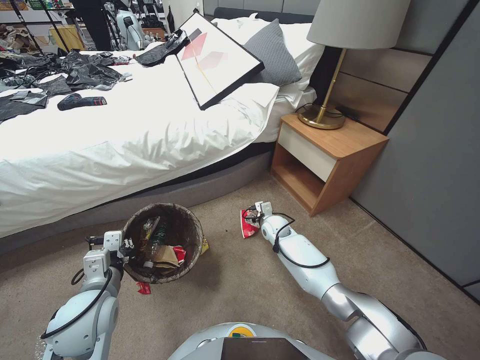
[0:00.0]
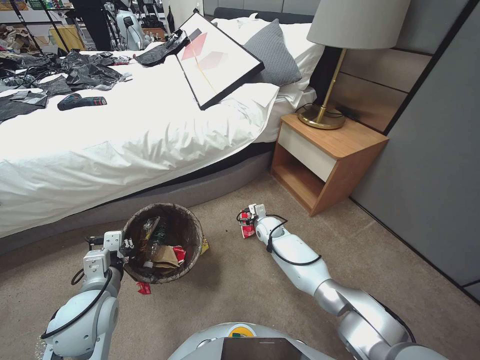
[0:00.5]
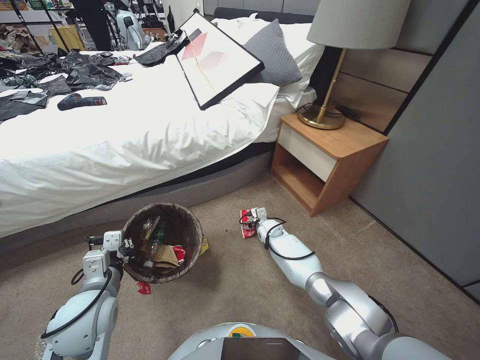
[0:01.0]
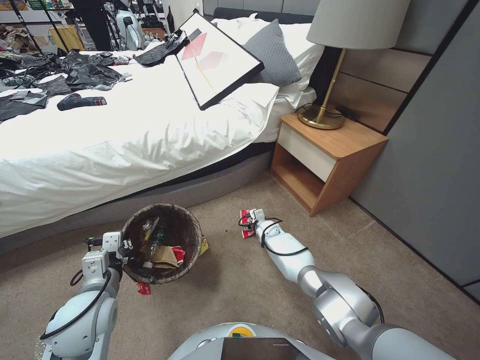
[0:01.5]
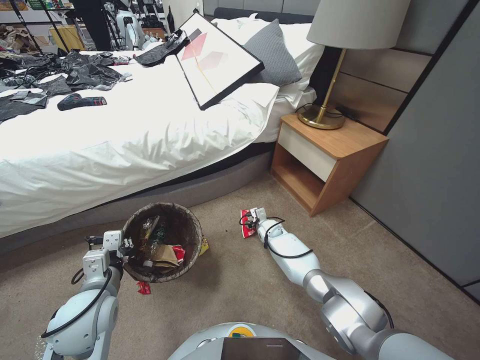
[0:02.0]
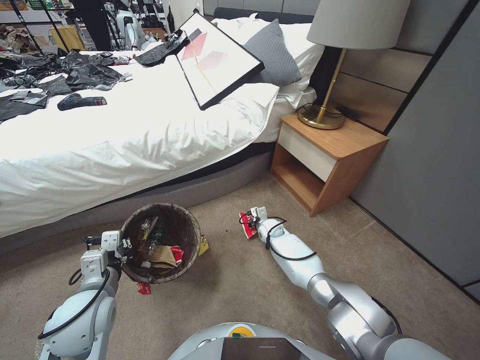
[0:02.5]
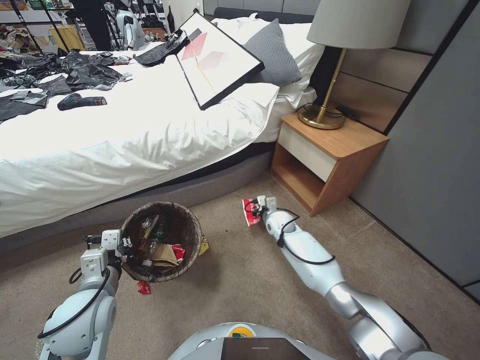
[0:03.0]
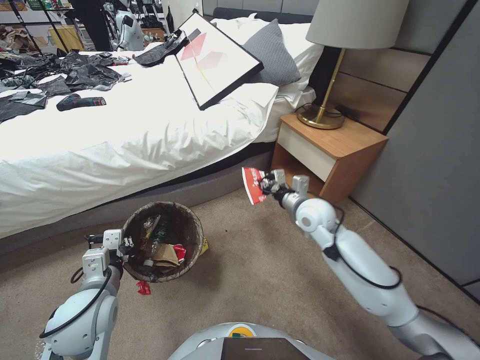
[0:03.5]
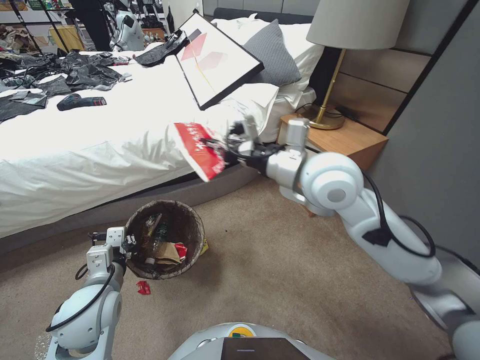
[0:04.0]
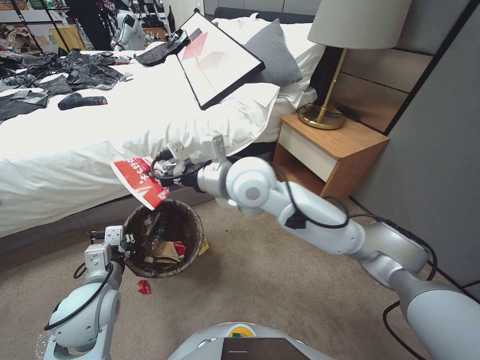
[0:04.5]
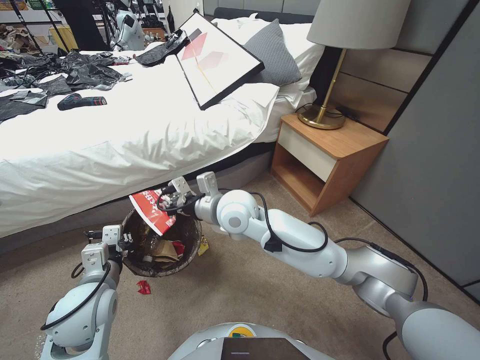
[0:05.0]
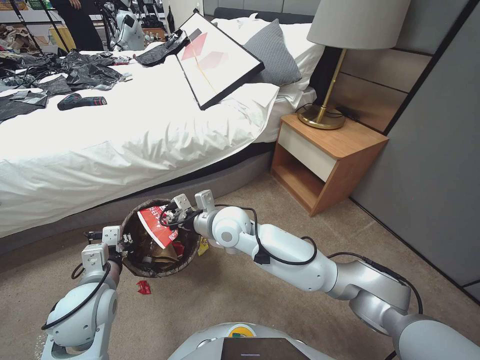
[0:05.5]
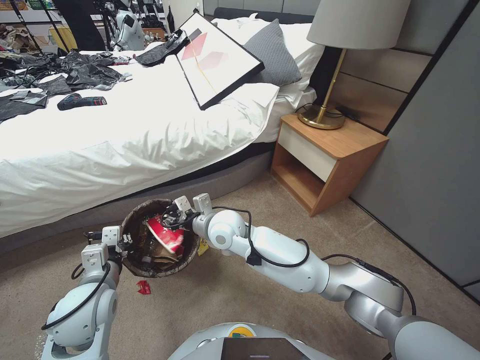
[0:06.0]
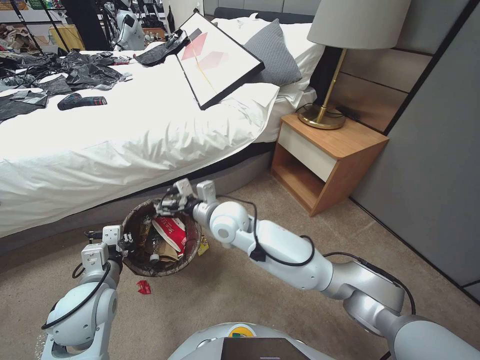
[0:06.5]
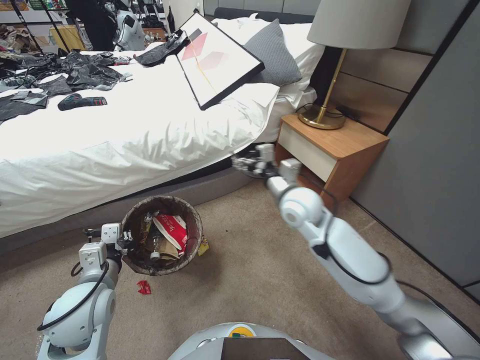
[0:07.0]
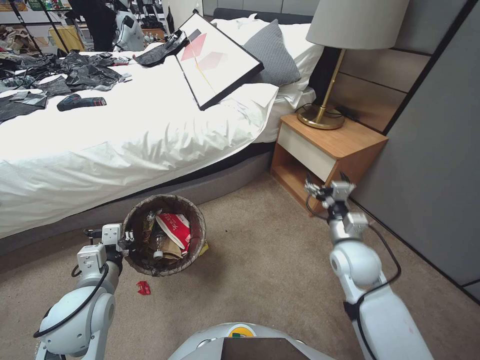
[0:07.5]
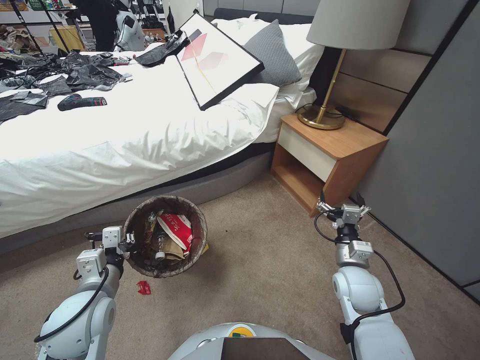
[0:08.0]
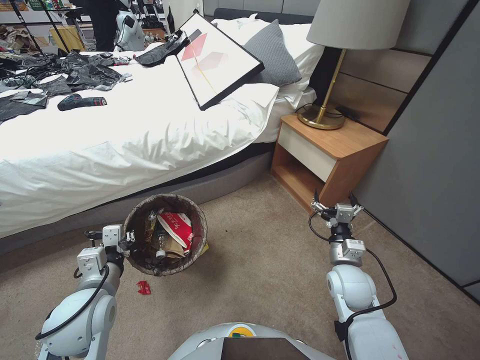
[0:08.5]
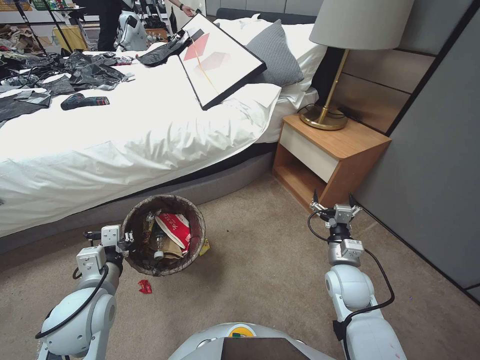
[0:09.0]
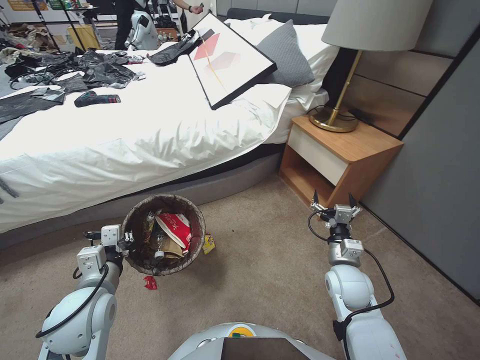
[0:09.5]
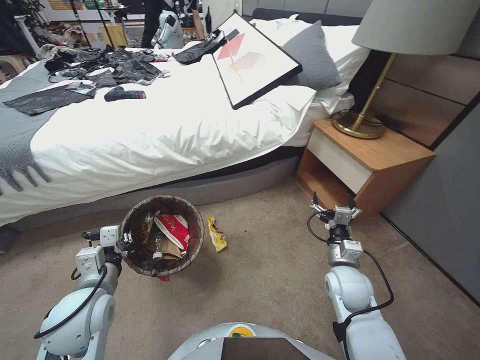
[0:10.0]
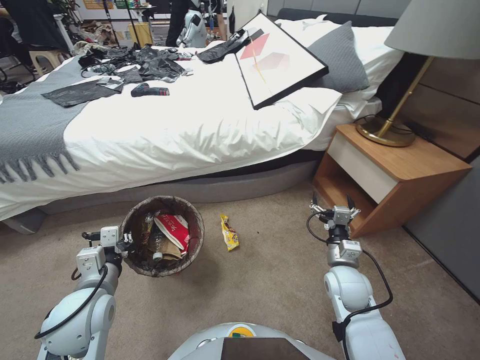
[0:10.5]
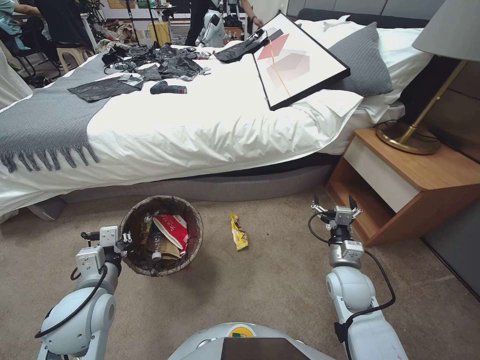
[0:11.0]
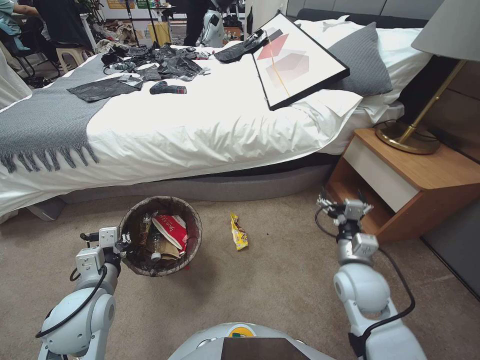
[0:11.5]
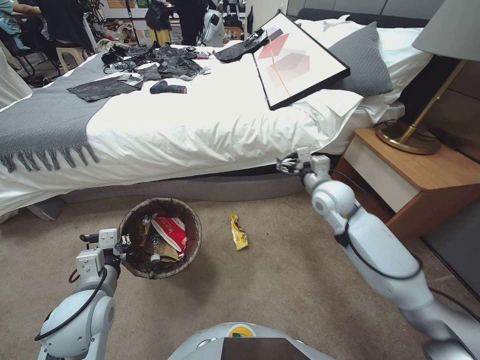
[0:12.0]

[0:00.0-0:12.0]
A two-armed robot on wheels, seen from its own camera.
Task of the whole recording: Pick up the trash bin, then pick up the garbage from the floor and place it into the trash bin.
0.0 to 2.0 s: The right gripper travels downward by roughly 5 cm, and closes.
2.0 to 4.0 s: The right gripper is displaced upward by roughly 50 cm, and closes its fingers.
4.0 to 6.0 s: The right gripper heads downward and to the left, covering some 25 cm.
6.0 to 8.0 s: The right gripper shifts approximately 30 cm to the right, and opens its fingers.
10.0 to 12.0 s: The right gripper moves forward and upward, about 20 cm.

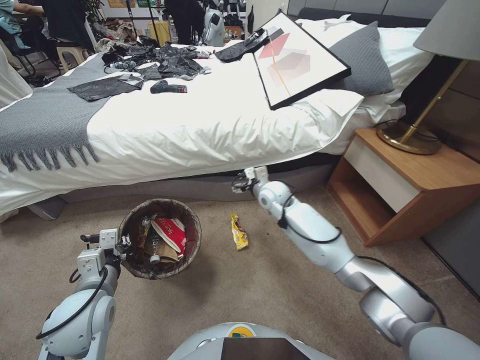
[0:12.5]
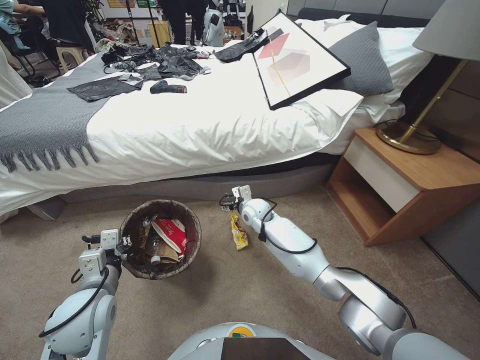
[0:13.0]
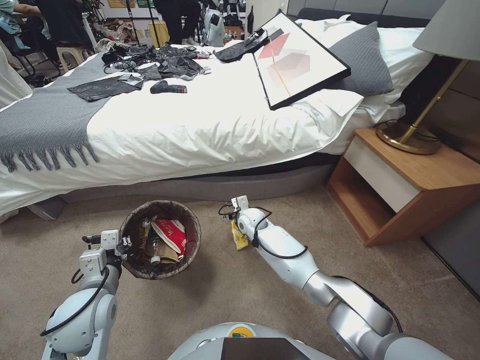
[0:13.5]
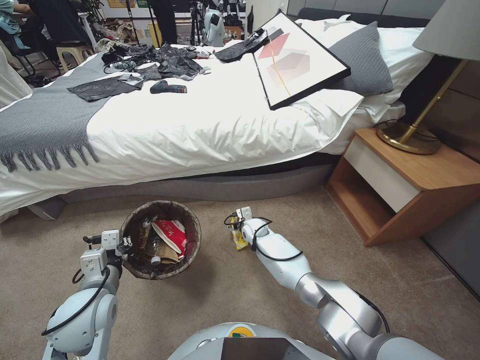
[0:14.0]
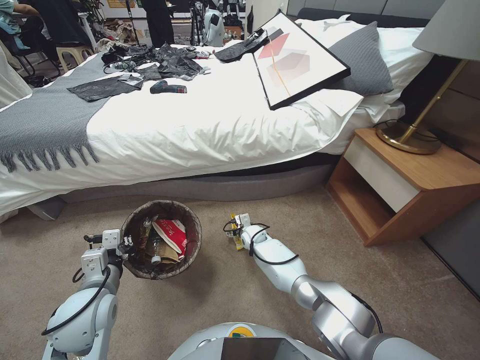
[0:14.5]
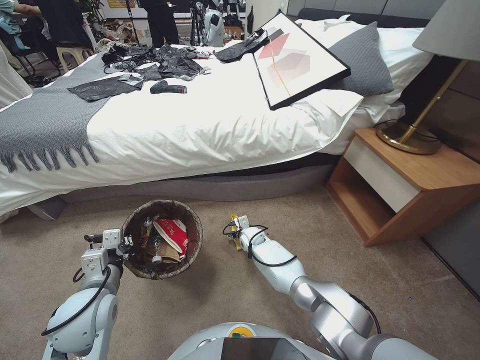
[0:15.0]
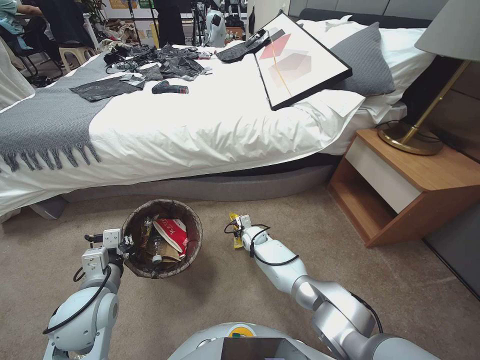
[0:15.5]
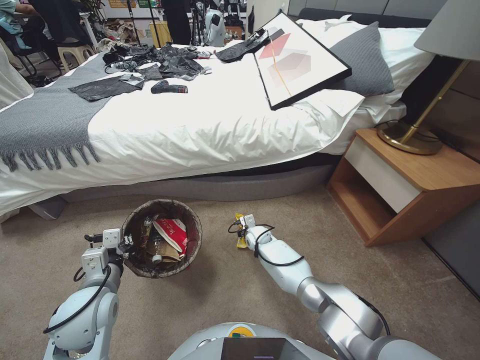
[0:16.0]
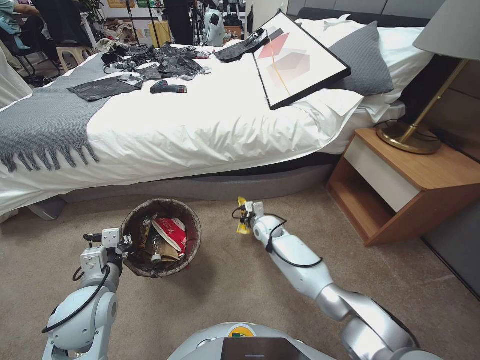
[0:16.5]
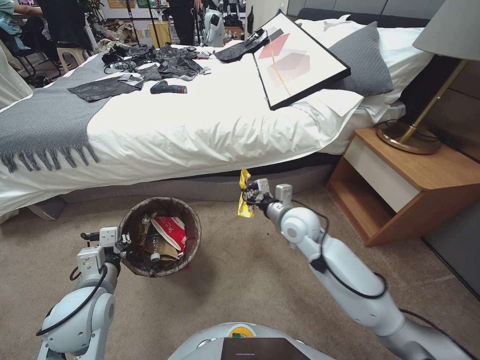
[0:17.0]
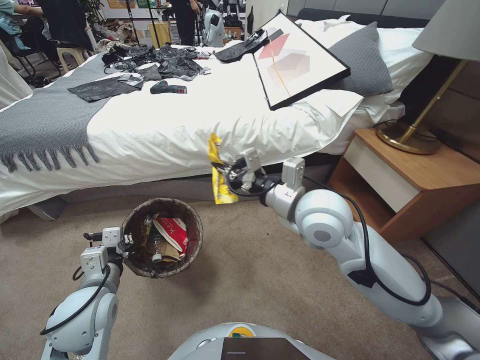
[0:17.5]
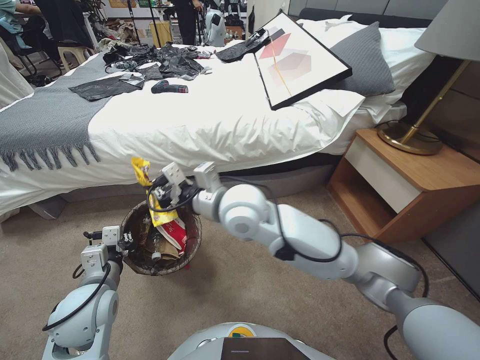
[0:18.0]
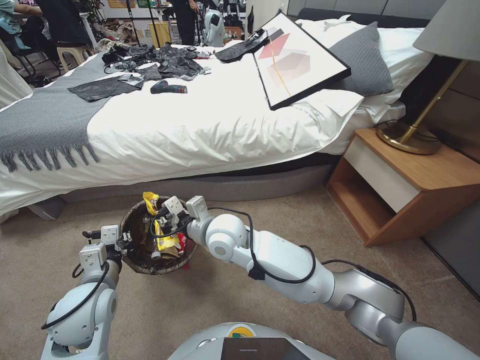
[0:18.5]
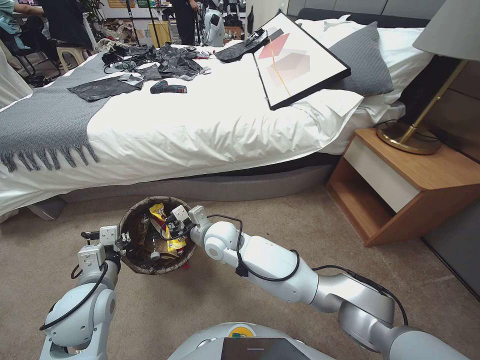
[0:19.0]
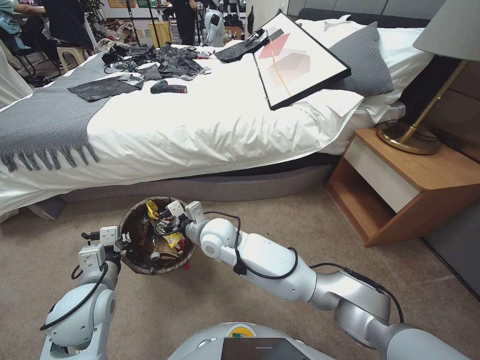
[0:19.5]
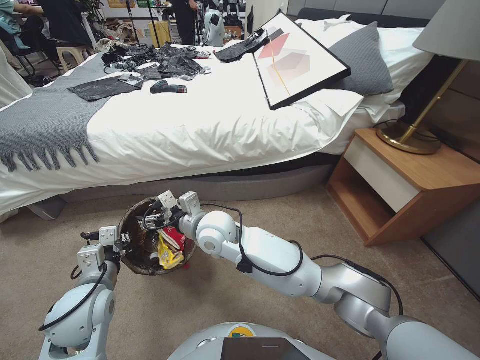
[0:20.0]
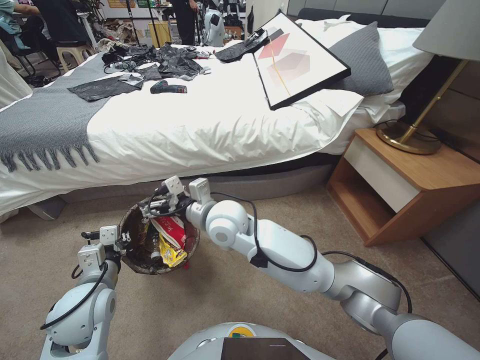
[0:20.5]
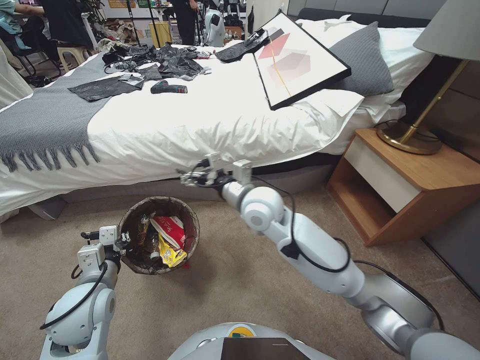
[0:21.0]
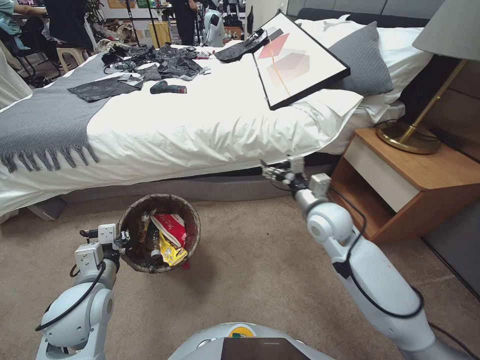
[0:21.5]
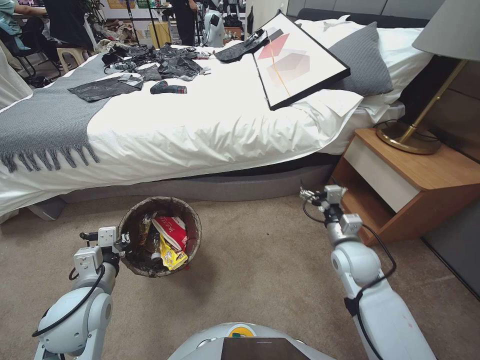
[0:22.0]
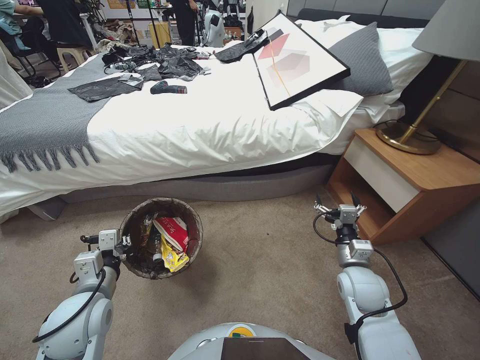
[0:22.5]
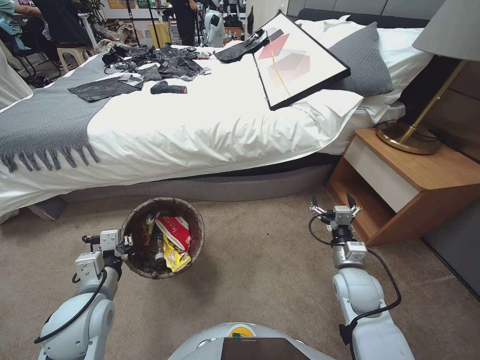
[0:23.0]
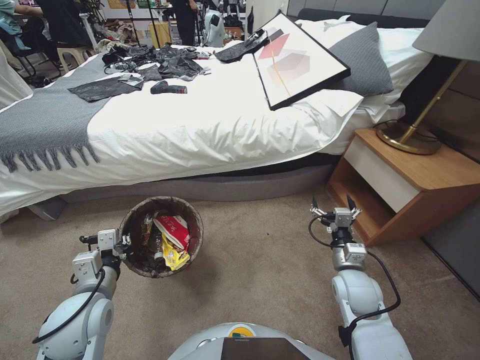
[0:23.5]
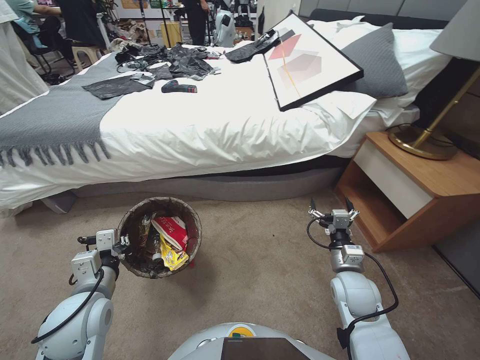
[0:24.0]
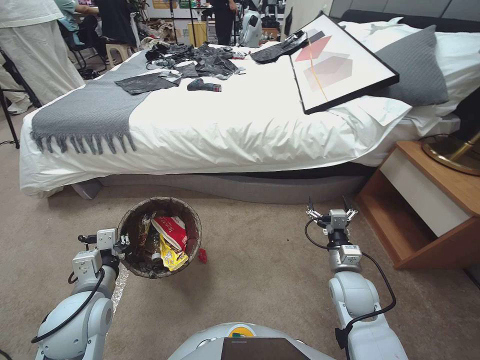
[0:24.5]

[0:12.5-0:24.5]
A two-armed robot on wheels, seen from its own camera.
Task of the whole recording: Pick up the trash bin, then pick up the garbage from the floor and place it into the trash bin.
12.5 to 14.5 s: The right gripper is displaced downward by approximately 25 cm.
14.5 to 16.5 s: The right gripper travels upward by about 5 cm, and closes up.
16.5 to 18.5 s: The right gripper is displaced upward, to the left and backward by roughly 30 cm.
18.5 to 20.5 s: The right gripper travels downward and back again, roughly 10 cm each way, and opens up.
20.5 to 22.5 s: The right gripper goes about 35 cm to the right.

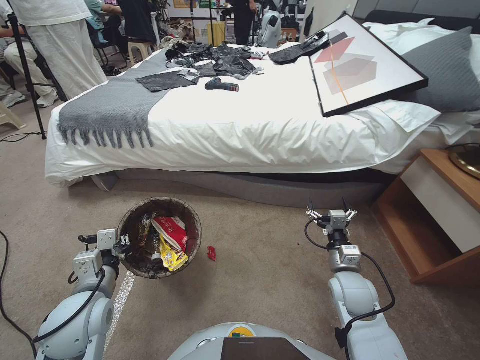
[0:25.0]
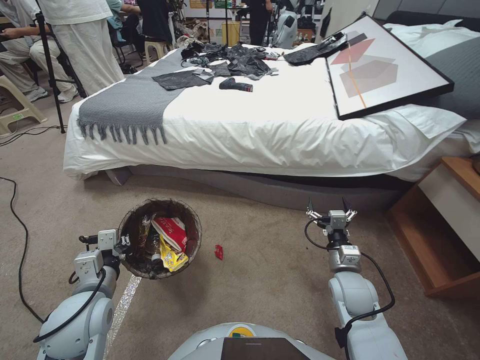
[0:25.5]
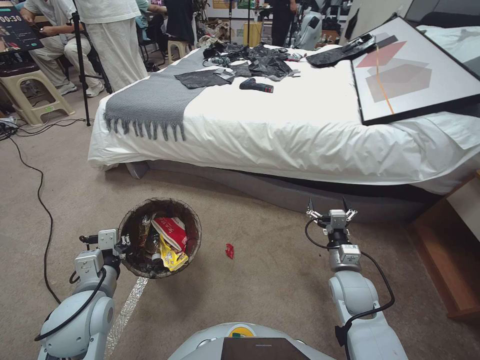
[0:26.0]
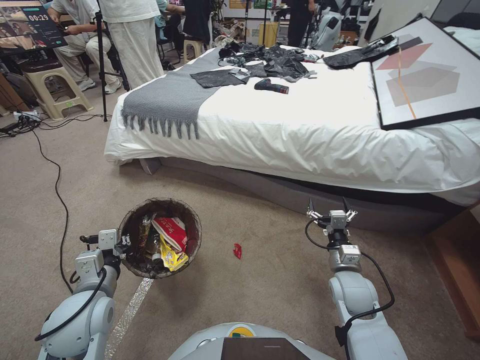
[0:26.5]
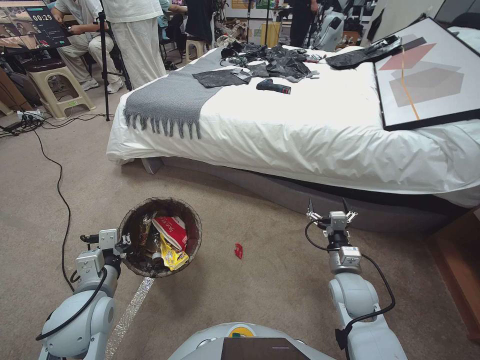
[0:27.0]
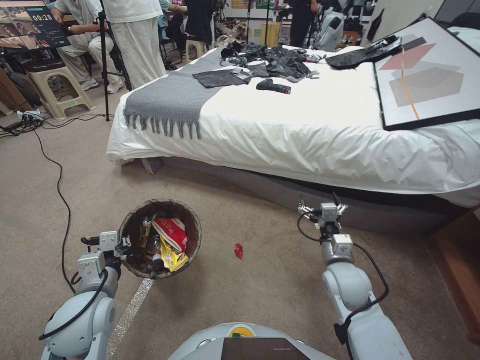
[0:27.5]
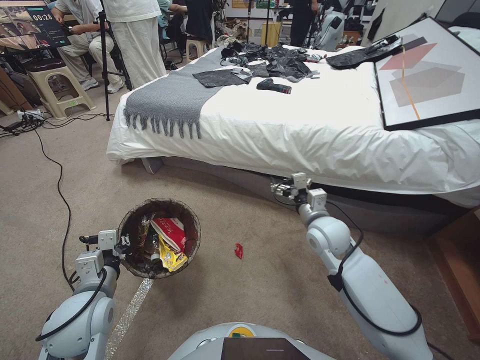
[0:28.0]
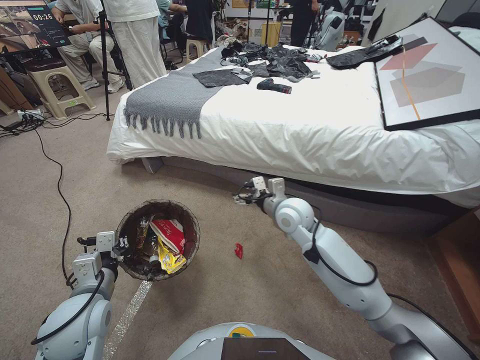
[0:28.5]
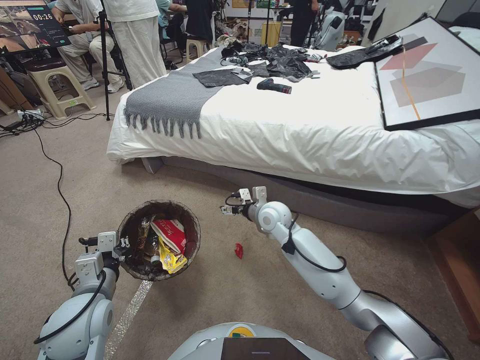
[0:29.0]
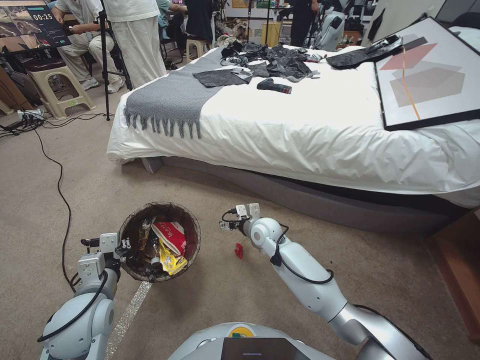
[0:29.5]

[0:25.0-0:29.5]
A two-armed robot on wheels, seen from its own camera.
Task of the whole recording: Pick up the trash bin, then pick up the garbage from the floor and place it into the trash bin.
27.0 to 29.5 s: The right gripper heads to the left and forward, covering roughly 25 cm.
